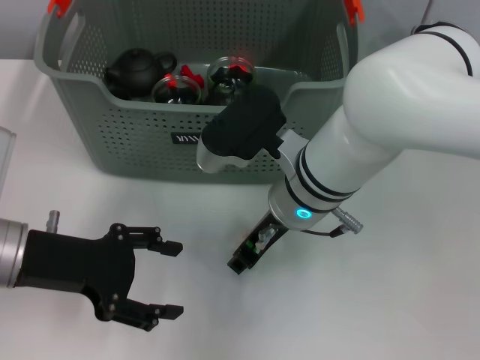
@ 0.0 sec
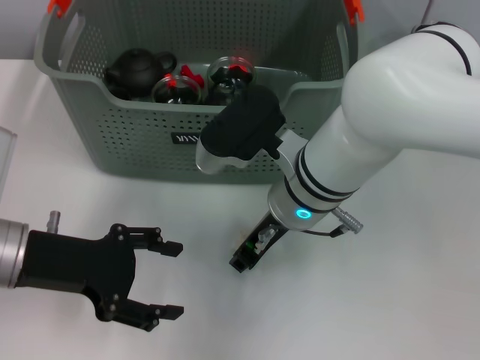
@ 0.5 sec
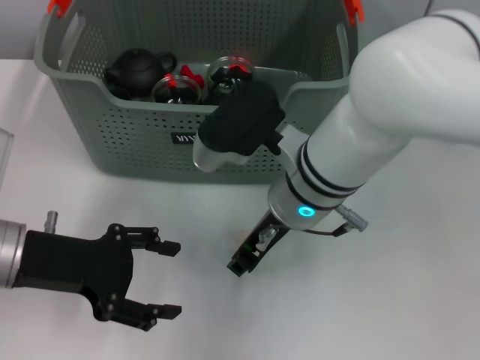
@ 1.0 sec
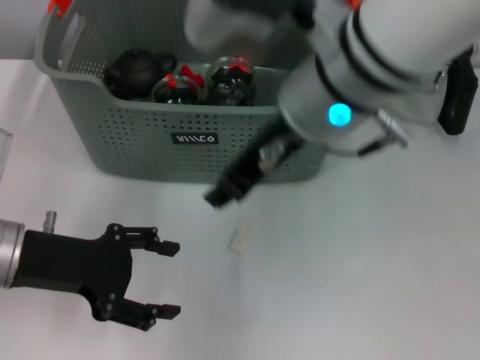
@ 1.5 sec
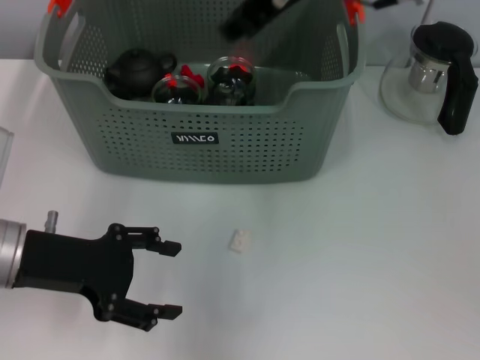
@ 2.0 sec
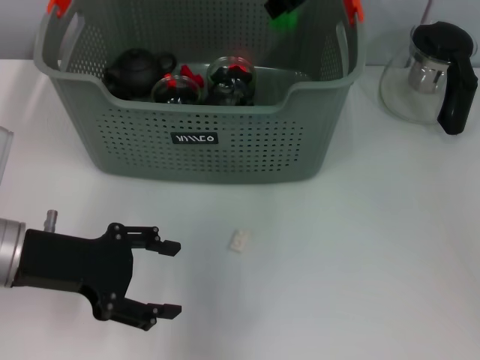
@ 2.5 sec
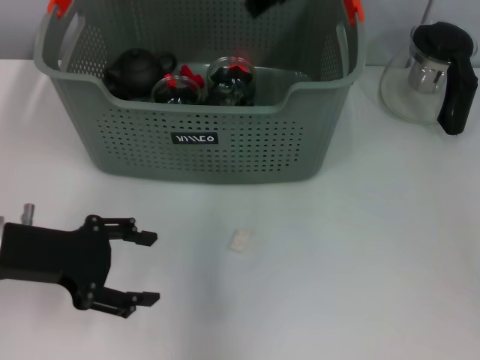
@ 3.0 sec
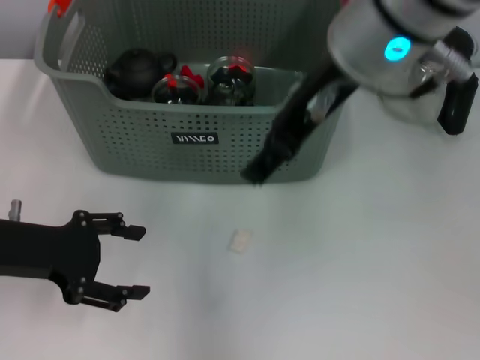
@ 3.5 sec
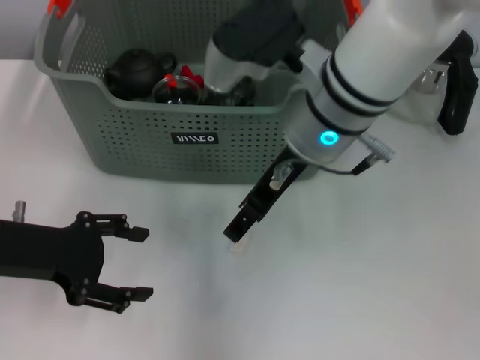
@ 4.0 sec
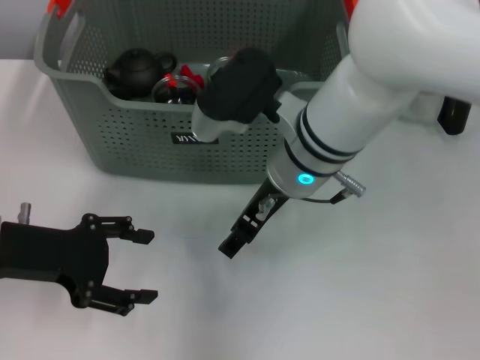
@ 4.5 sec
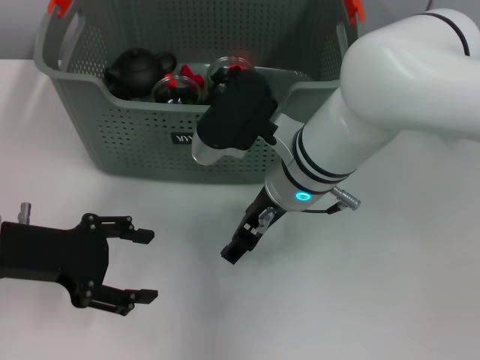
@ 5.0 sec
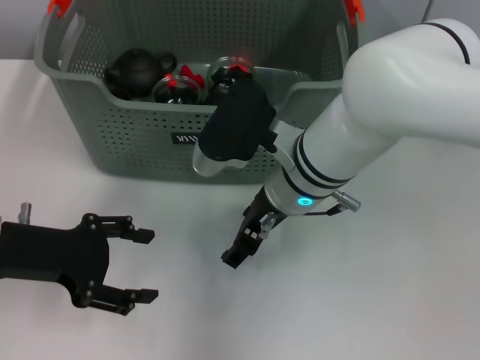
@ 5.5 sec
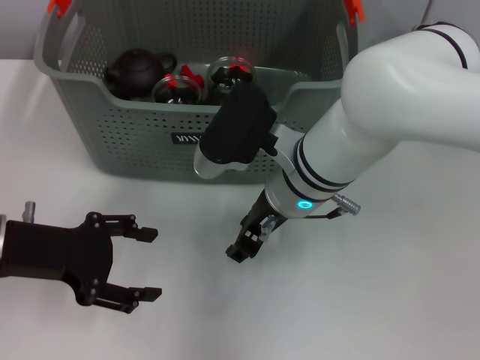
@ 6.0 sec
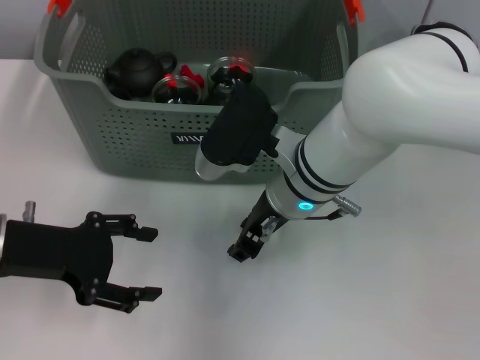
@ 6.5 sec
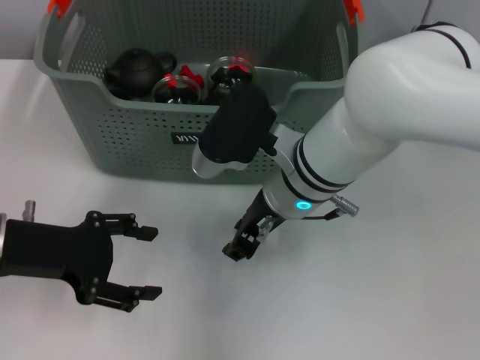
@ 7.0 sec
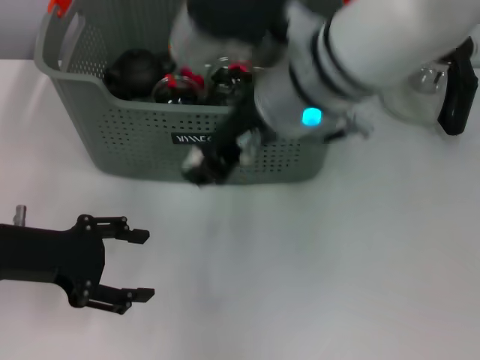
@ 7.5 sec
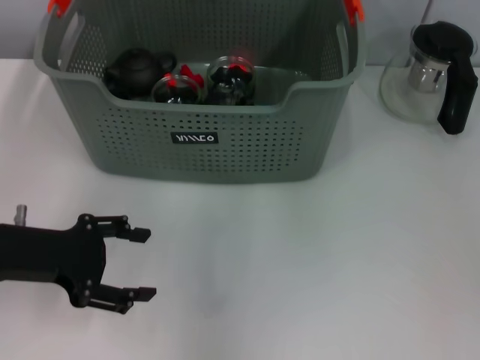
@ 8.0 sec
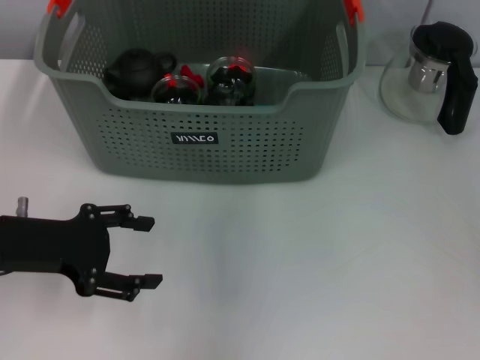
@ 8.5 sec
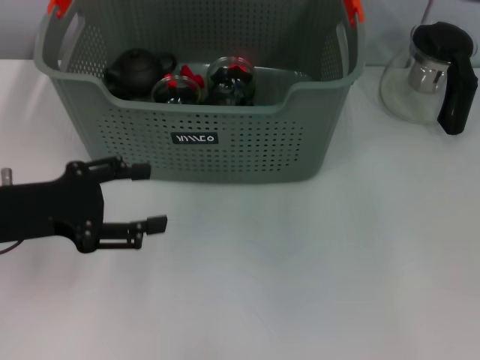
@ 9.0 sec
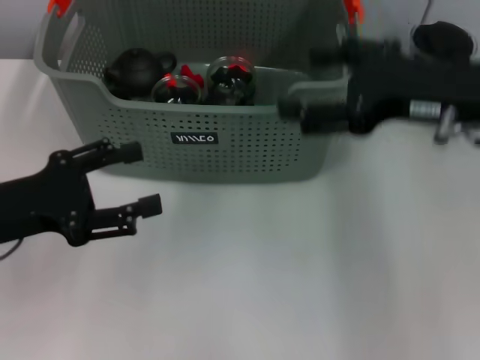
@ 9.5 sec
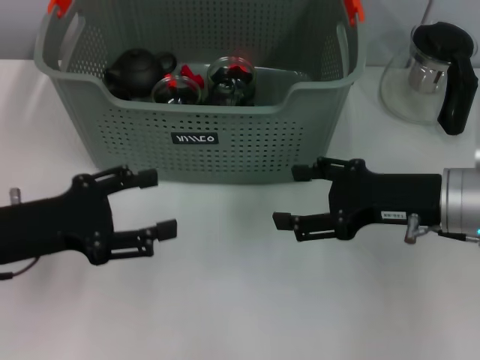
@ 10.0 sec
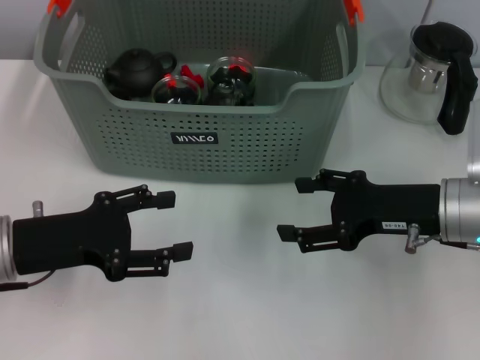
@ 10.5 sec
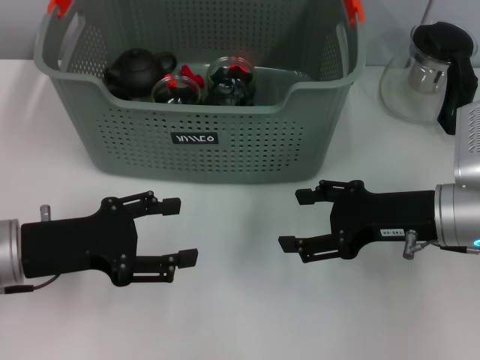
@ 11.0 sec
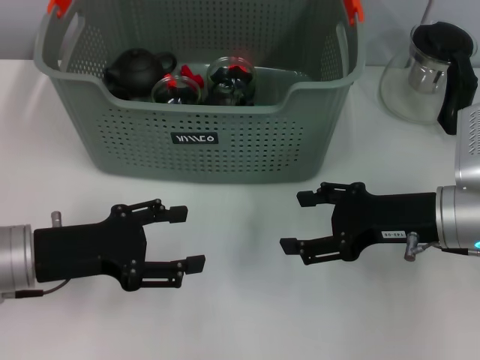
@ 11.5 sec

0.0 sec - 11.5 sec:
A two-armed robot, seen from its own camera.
Task of the whole recording: pick up the teacup on the table and place it into the storage bin, pick up the block on the table and place it into the storage bin.
Step, 0.5 sec - 2.5 sec: Place the green block in the storage box with right gripper.
Step, 3.0 sec - 6.5 sec: Grasp the white block with right gripper.
Step, 7.0 sec - 8.0 sec: Place the white block in the storage box with right gripper.
0.0 sec - 2.0 sec: The right gripper heads upward, covering some 20 cm.
2.0 sec - 4.0 sec: The right gripper is displaced downward by approximately 10 cm, and opens.
4.0 sec - 6.0 sec: The right gripper shifts roughly 10 cm downward.
6.0 sec - 7.5 sec: The right gripper goes roughly 10 cm upward, and closes its fingers.
7.5 sec - 9.5 sec: The right gripper heads to the right, covering roughly 15 cm, and opens.
9.5 sec - 11.5 sec: The right gripper is displaced downward by approximately 10 cm; the left gripper moves about 5 cm.
